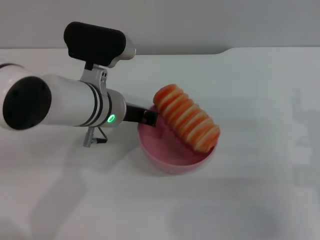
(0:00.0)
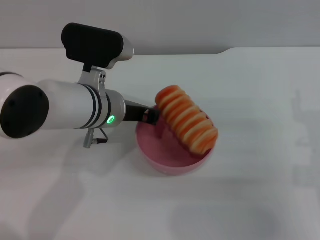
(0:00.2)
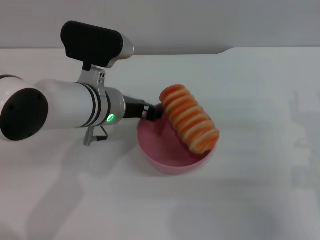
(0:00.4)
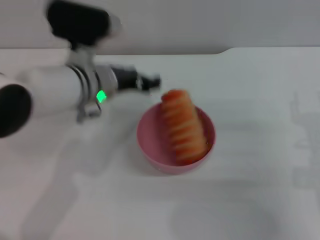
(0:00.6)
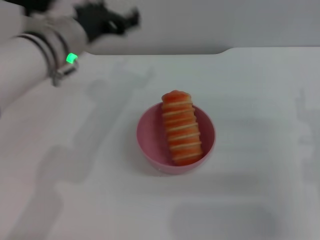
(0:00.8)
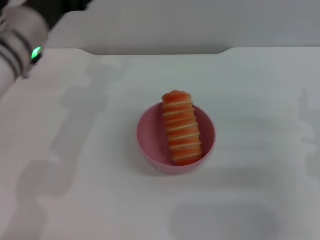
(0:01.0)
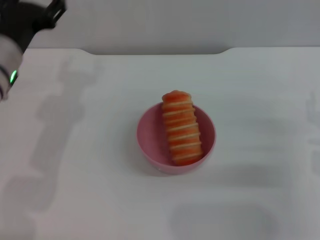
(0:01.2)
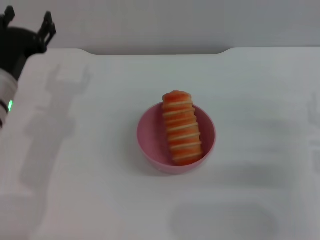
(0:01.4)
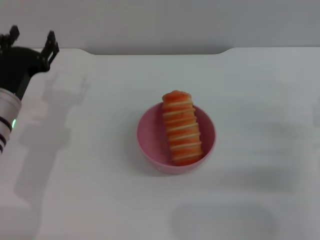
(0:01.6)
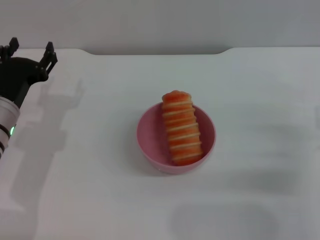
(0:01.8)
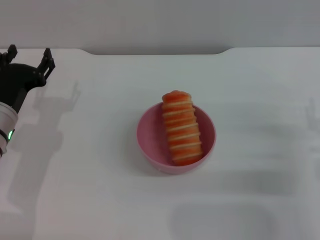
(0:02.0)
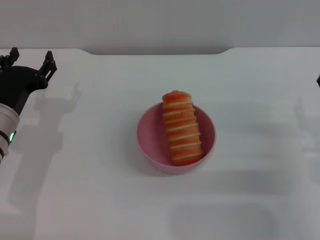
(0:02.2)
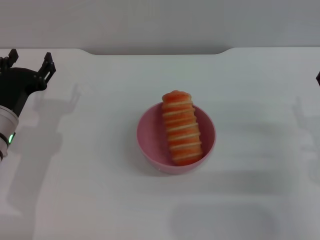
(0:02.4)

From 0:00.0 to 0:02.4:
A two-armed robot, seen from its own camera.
Task of the whole recording: put the bread into the pink bowl and pour it out repeatedly.
From 0:00.0 to 0:01.2: The left gripper shifts some 10 cm to the left, and opens.
From 0:01.2 to 0:02.4: The left gripper shifts roughly 10 cm downward.
